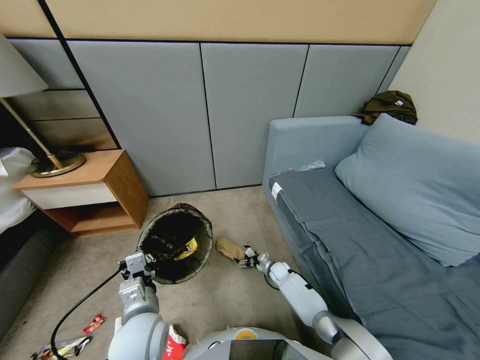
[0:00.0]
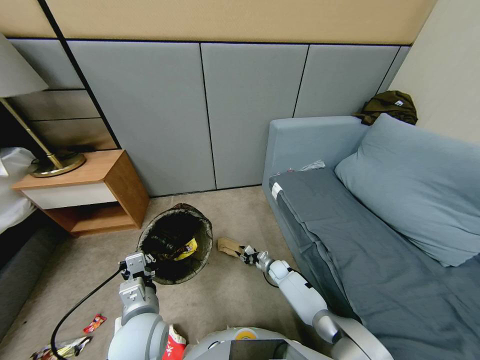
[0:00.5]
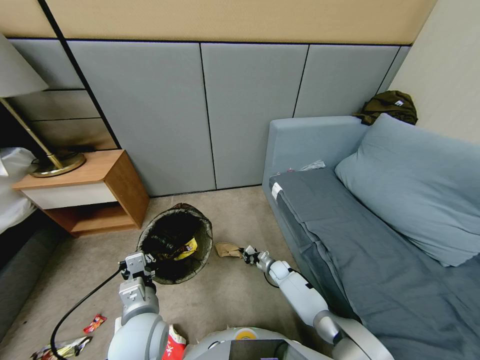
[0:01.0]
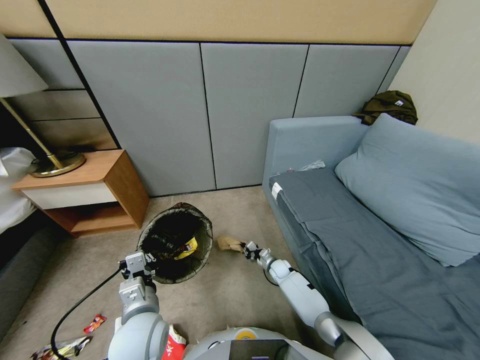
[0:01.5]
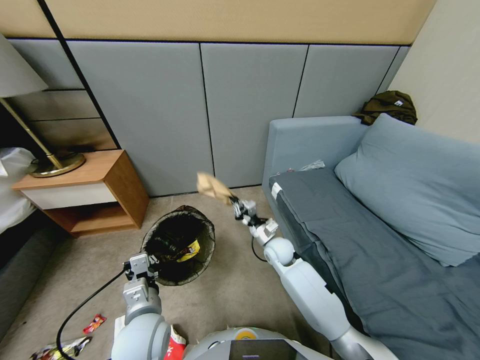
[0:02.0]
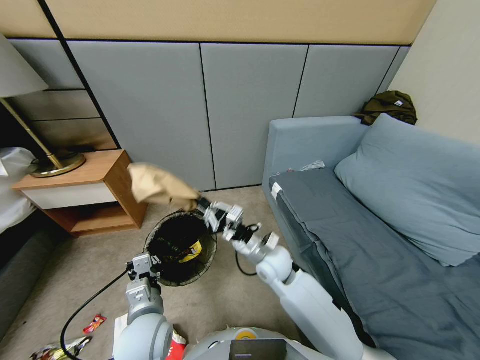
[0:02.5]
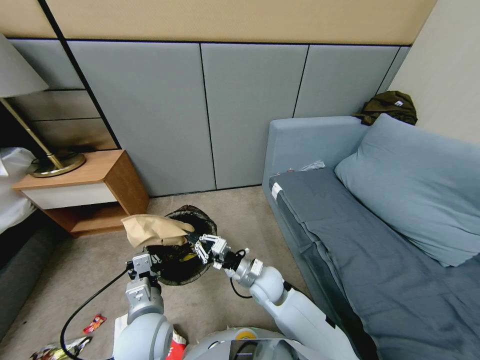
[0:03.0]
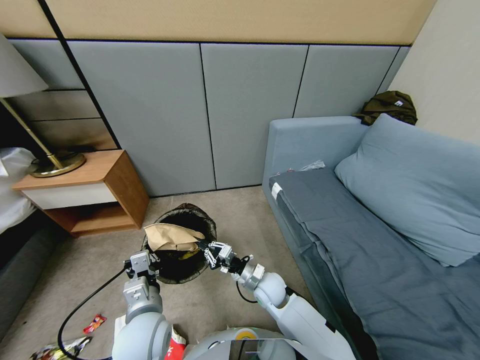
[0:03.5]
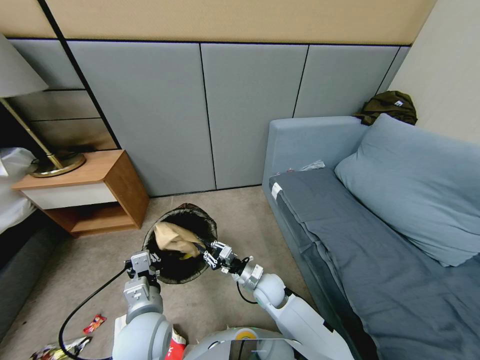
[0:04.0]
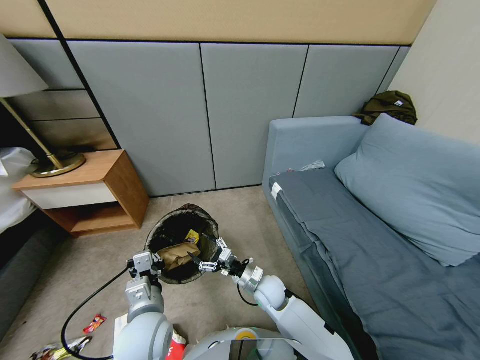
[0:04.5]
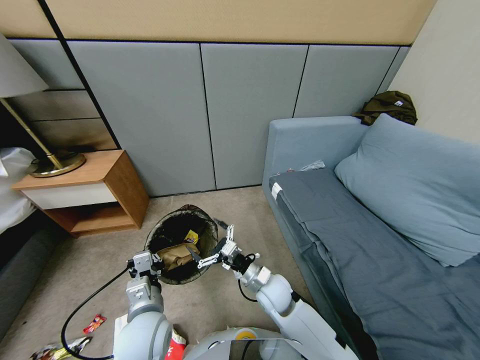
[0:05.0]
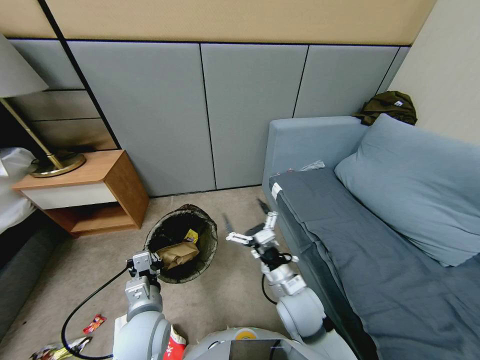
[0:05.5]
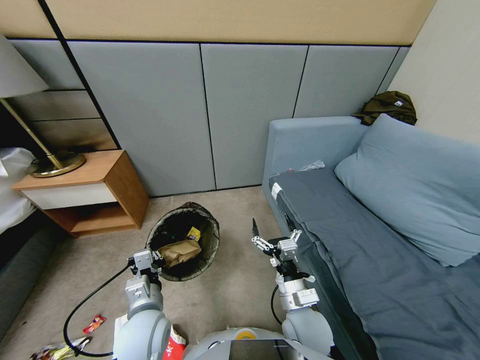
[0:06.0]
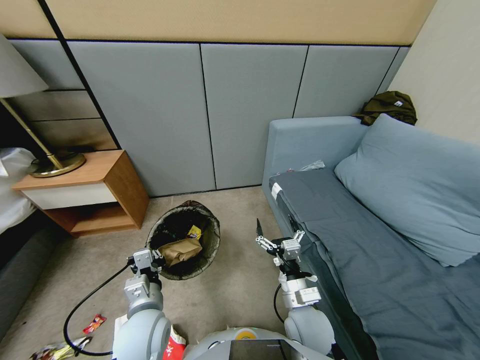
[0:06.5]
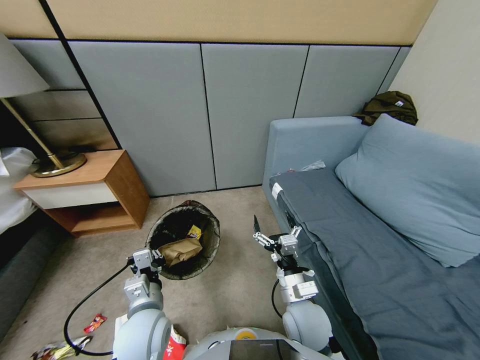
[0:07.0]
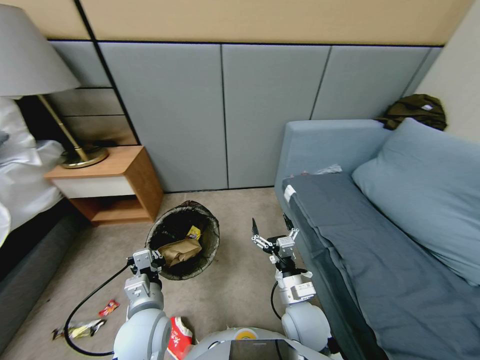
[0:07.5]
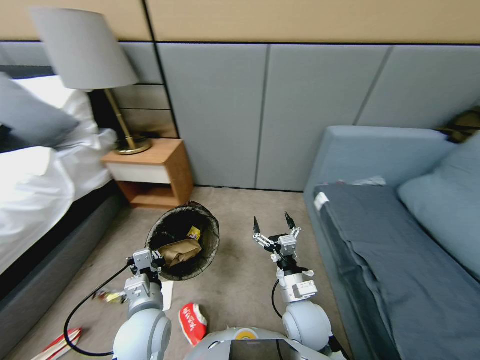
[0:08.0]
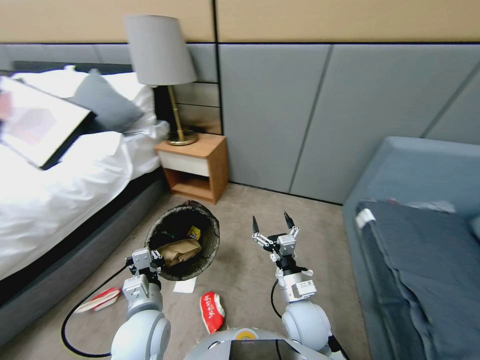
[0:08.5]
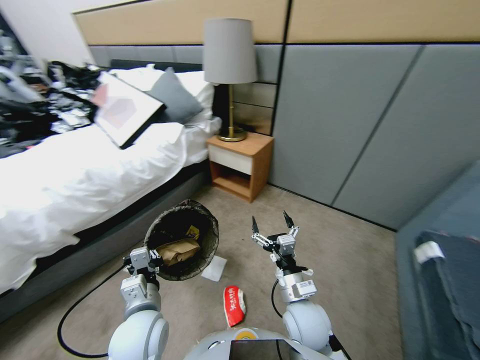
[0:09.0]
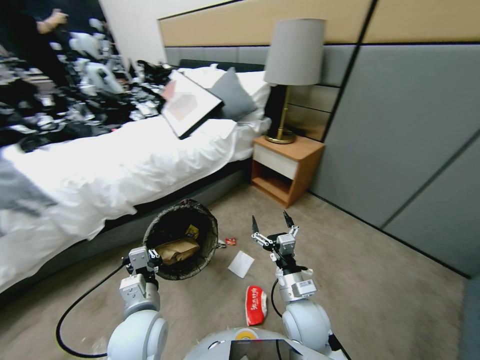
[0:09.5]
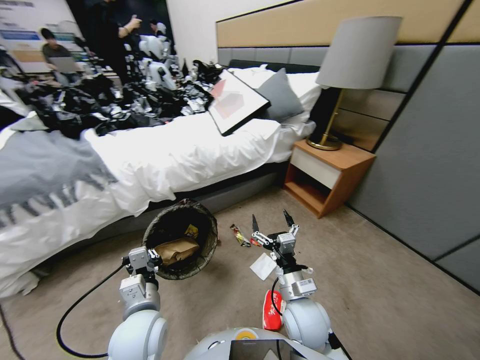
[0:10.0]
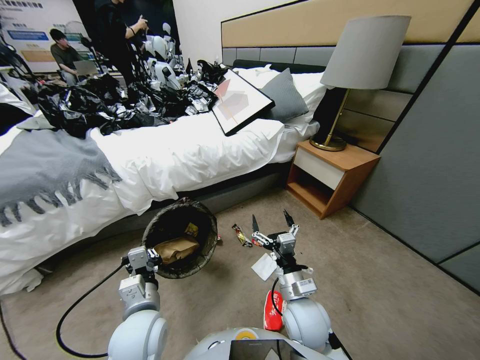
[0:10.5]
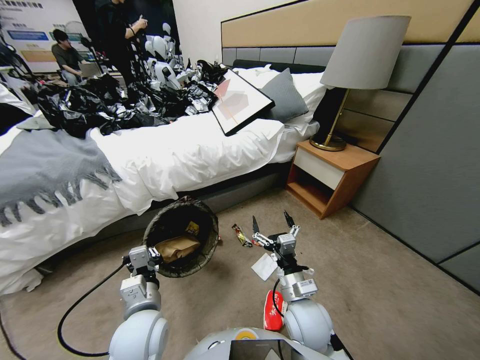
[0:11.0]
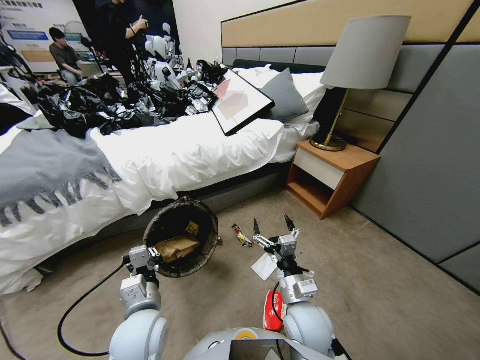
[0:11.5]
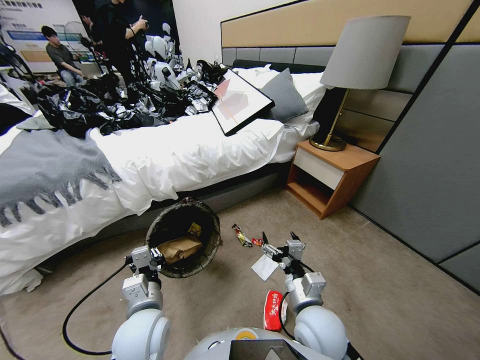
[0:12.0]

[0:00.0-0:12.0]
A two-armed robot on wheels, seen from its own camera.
Task of the whole recording: Pick up the trash bin, then pick up the garbage from the floor and place it into the trash bin.
0:00.0 to 0:02.0: The right gripper is displaced upward by roughly 30 cm, and closes.
0:02.0 to 0:04.0: The right gripper is displaced downward and backward by some 15 cm, and opens its fingers.
0:04.0 to 0:06.0: The right gripper goes some 15 cm backward, upward and to the right, and opens.

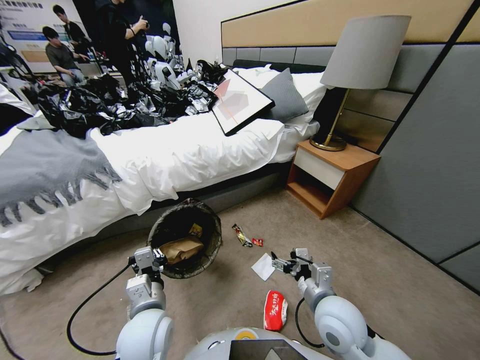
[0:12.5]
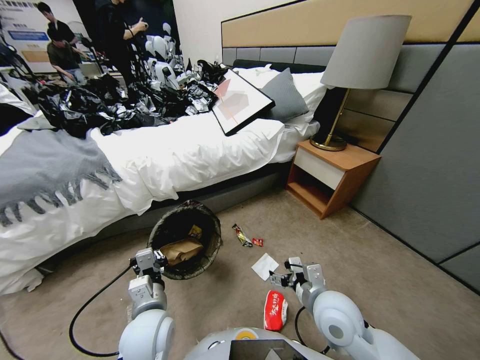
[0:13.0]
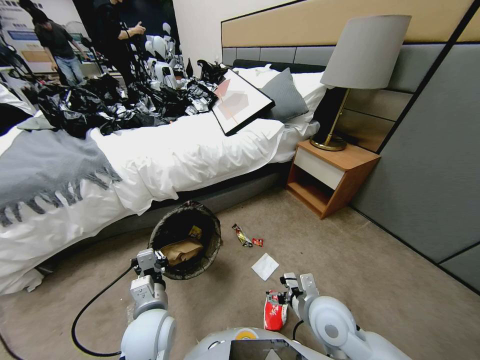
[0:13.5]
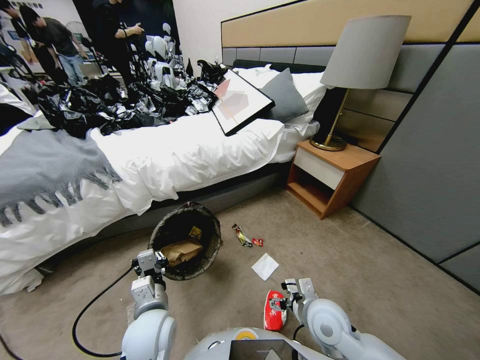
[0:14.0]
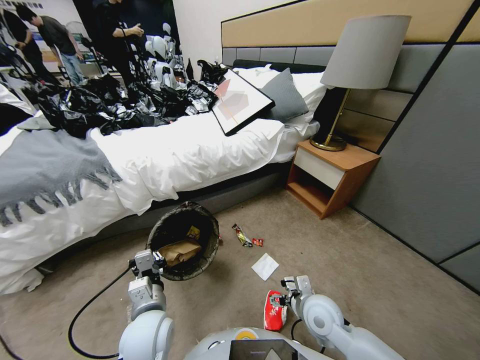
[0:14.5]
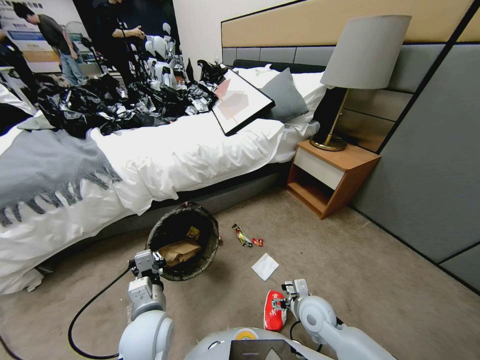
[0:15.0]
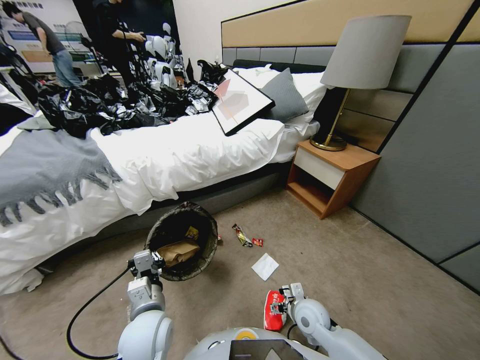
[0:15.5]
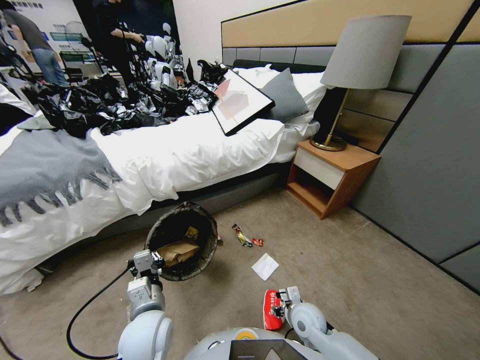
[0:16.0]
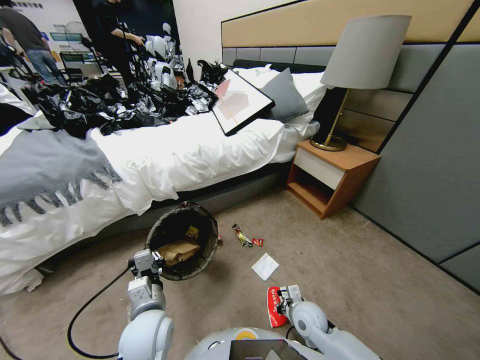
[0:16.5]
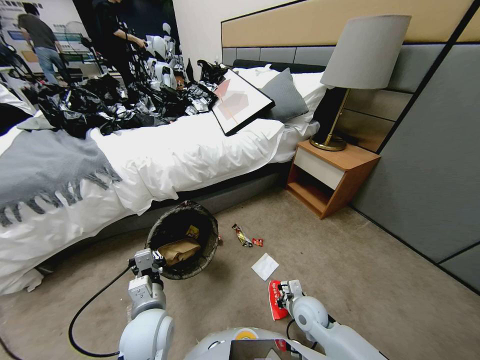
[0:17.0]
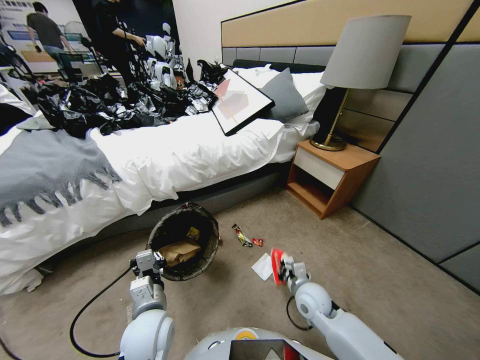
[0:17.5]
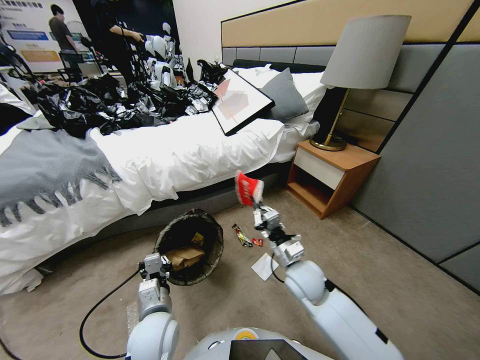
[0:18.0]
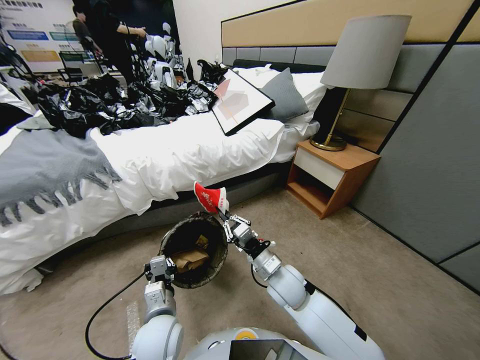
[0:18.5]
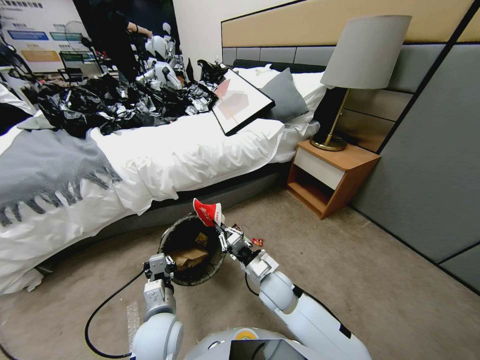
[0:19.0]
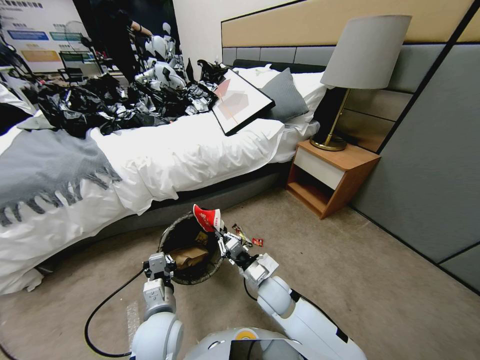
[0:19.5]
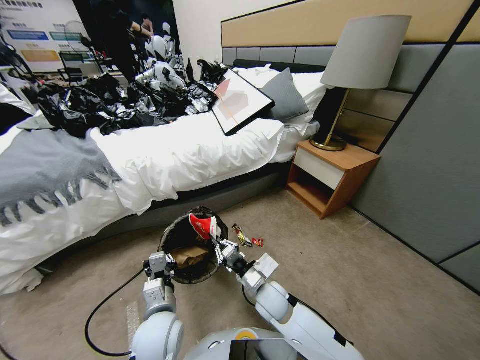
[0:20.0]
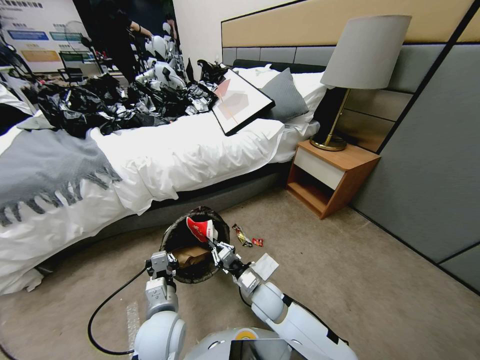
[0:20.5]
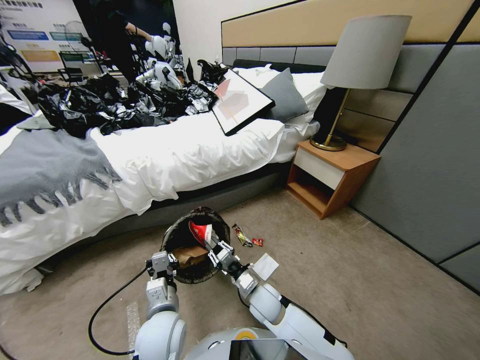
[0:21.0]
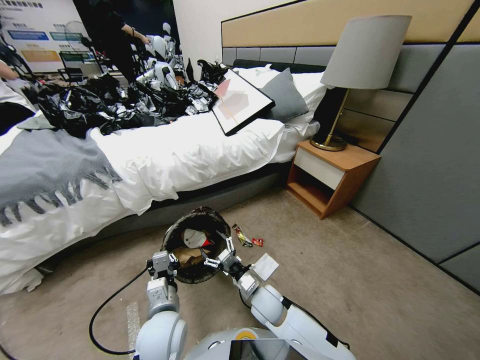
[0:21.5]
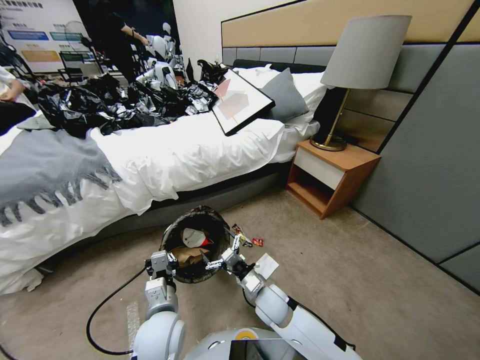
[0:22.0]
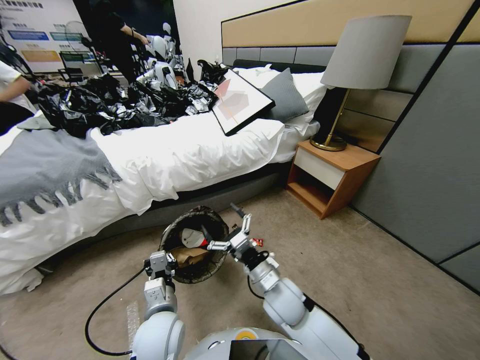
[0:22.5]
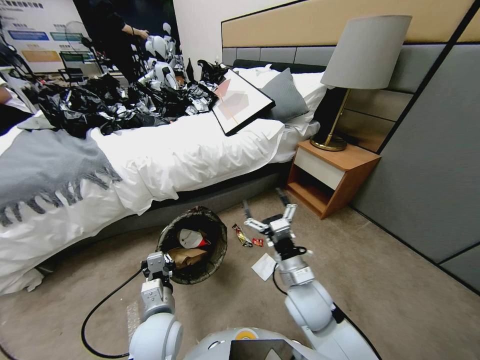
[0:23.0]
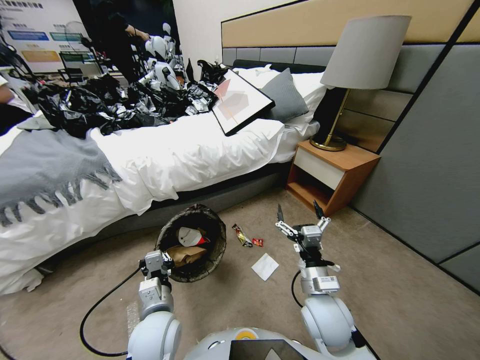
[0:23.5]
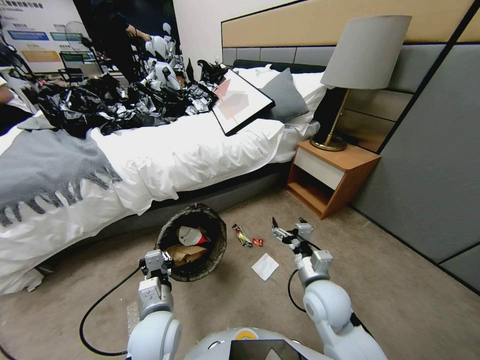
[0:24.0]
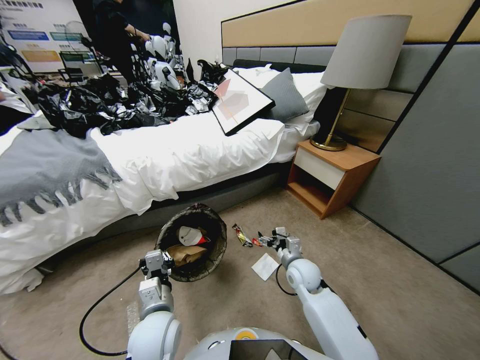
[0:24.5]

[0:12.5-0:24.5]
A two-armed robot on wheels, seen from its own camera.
Task of the whole recording: Pick up the trash bin, then pick up the garbage from the floor and place it into the trash bin.
0:12.5 to 0:14.5: The right gripper goes approximately 10 cm downward.
0:14.5 to 0:16.5: The right gripper goes roughly 5 cm downward, and closes.
0:16.5 to 0:18.5: The right gripper goes approximately 15 cm upward, to the left and forward.
0:18.5 to 0:20.5: The right gripper shifts roughly 10 cm downward.
0:20.5 to 0:22.5: The right gripper is displaced upward by about 10 cm, and opens.
0:22.5 to 0:24.5: The right gripper travels forward, downward and to the right by some 15 cm.

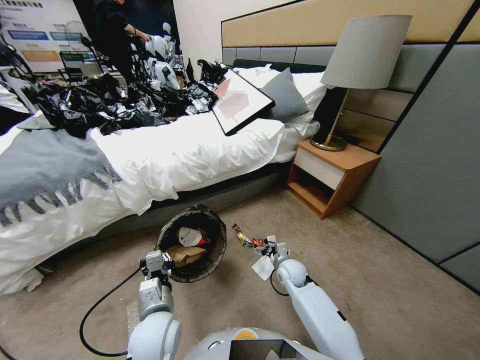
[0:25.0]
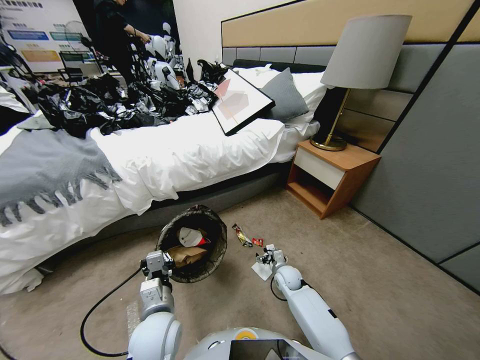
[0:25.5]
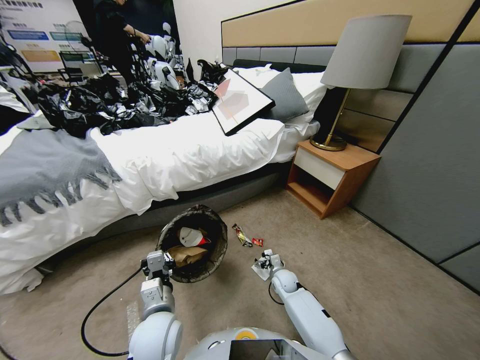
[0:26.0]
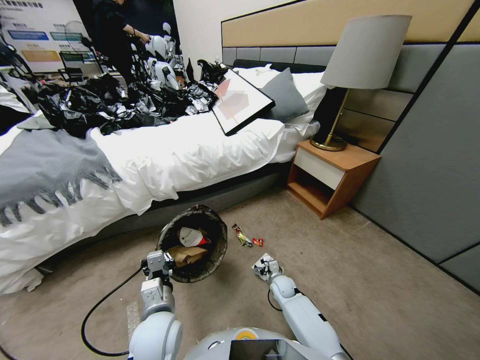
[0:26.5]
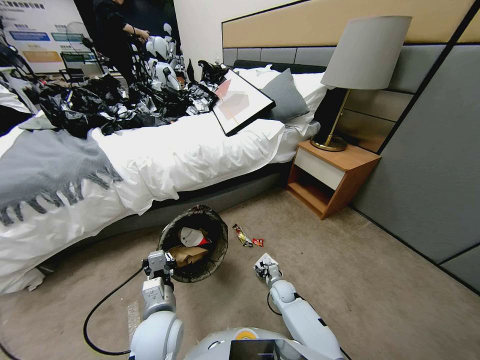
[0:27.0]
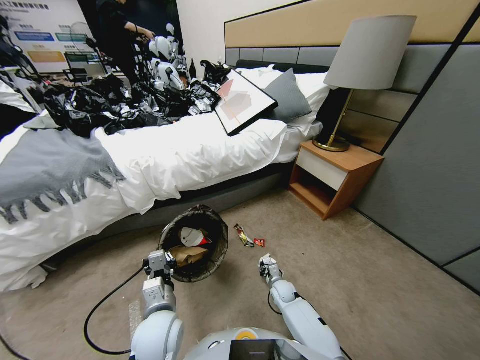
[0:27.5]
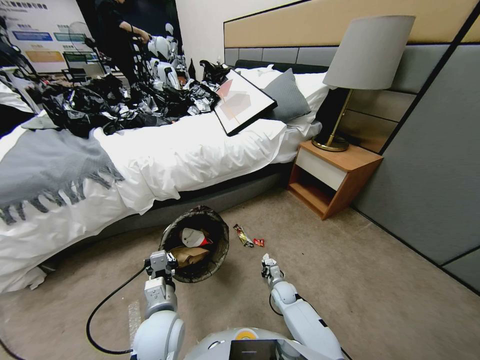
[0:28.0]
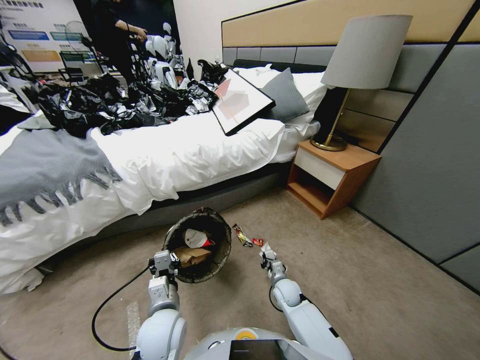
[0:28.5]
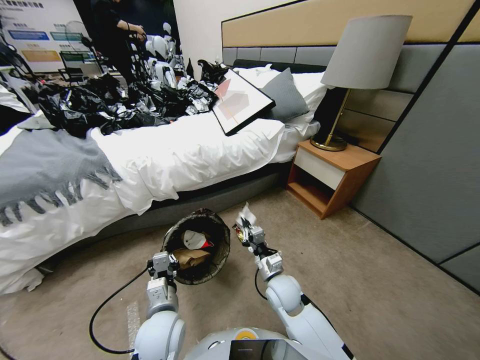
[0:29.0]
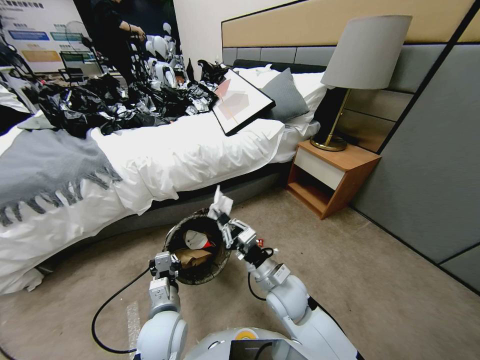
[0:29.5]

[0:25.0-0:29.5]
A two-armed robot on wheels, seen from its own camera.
Task of the whole recording: Pick up the trash bin, then pick up the garbage from the floor and place it into the trash bin.
0:25.0 to 0:27.0: The right gripper travels downward by about 10 cm, and closes up.
0:27.0 to 0:29.5: The right gripper goes about 25 cm upward, and closes its fingers.
